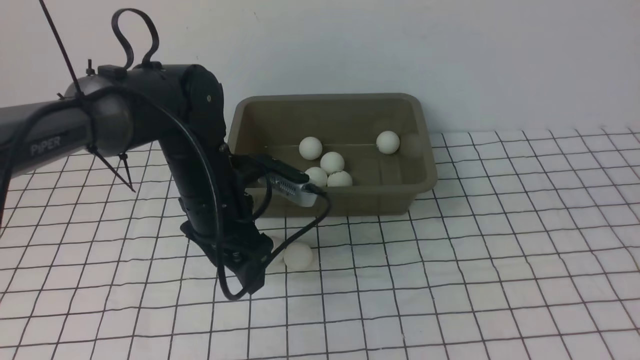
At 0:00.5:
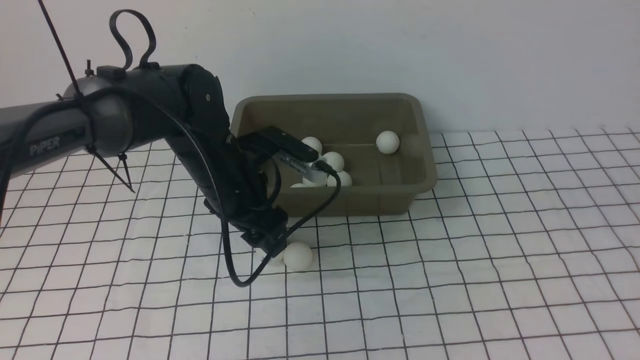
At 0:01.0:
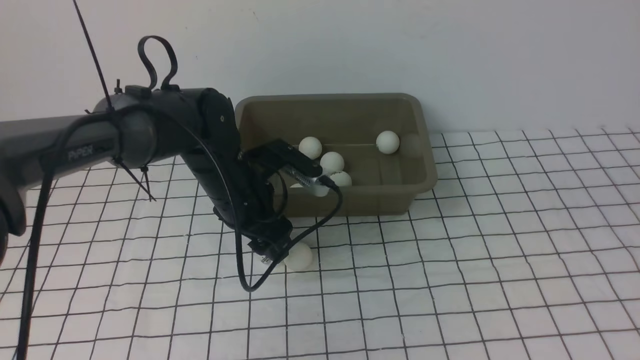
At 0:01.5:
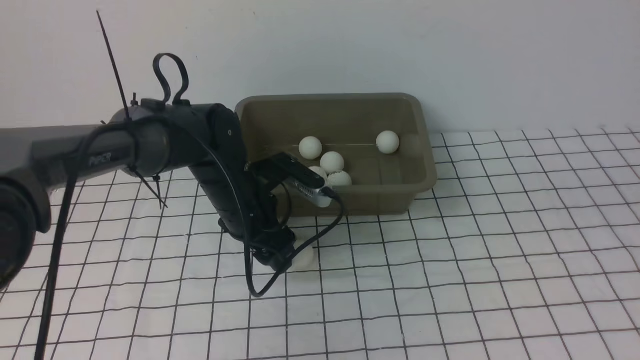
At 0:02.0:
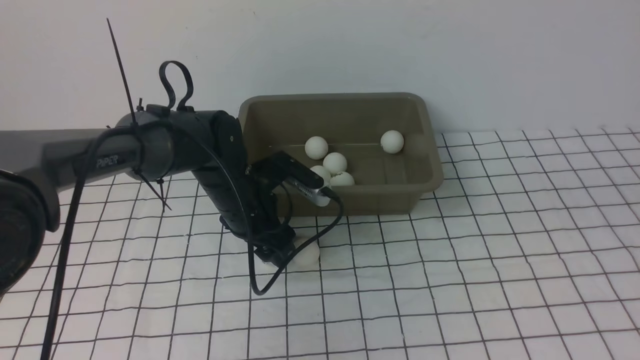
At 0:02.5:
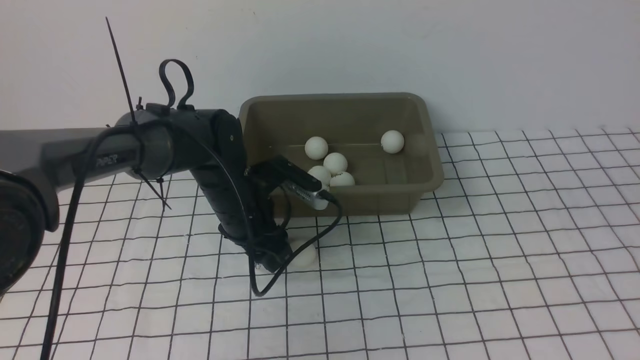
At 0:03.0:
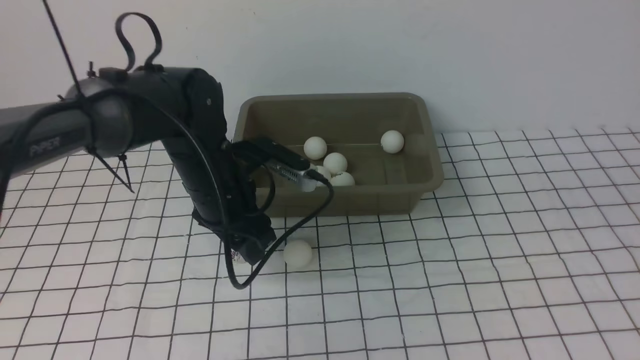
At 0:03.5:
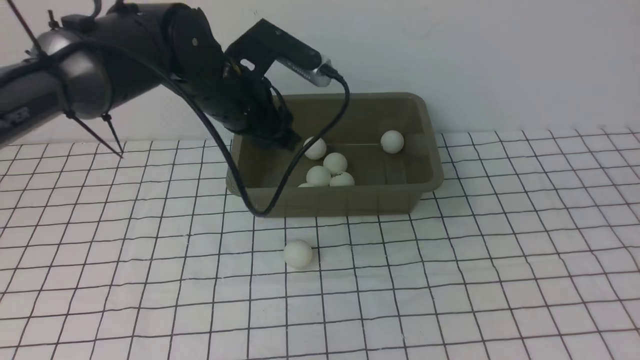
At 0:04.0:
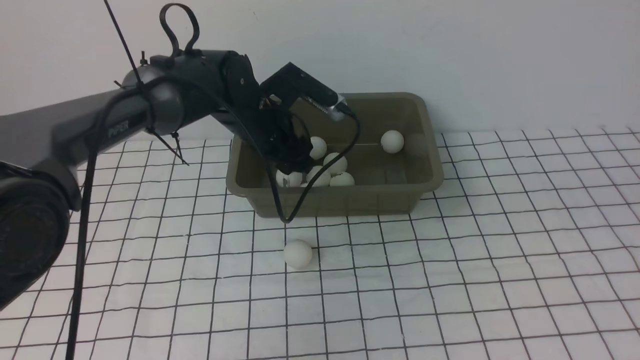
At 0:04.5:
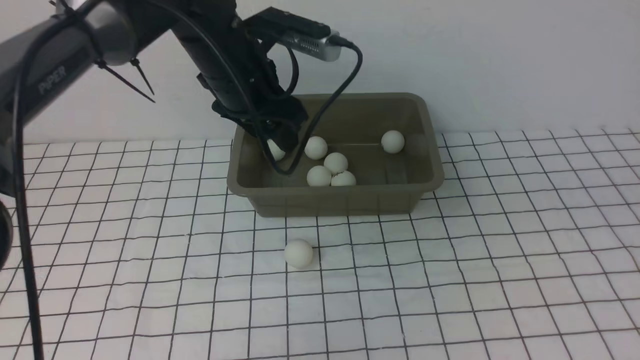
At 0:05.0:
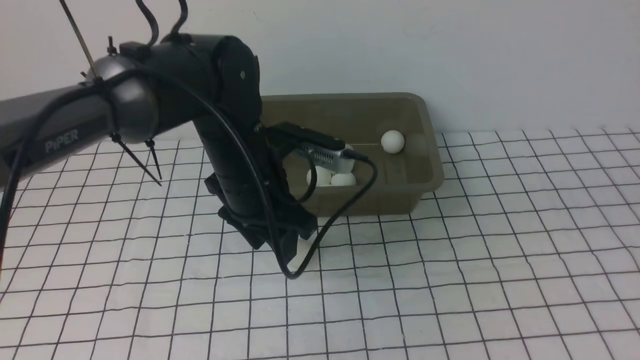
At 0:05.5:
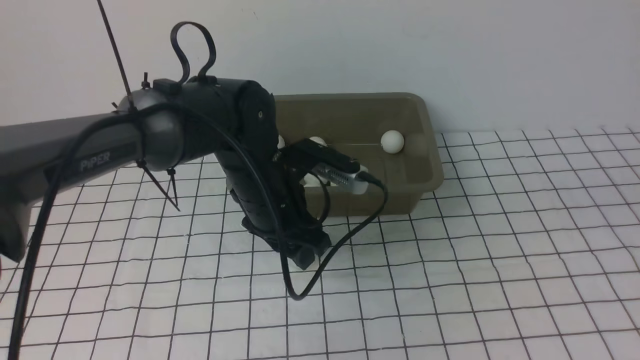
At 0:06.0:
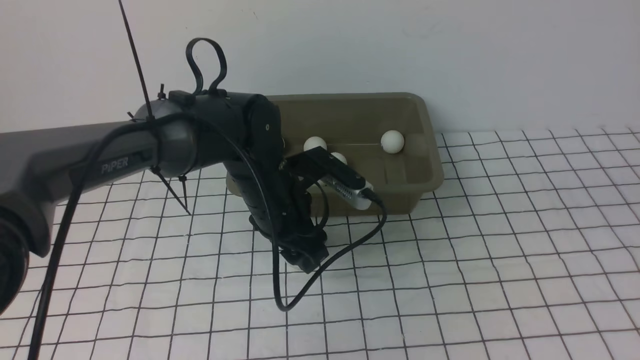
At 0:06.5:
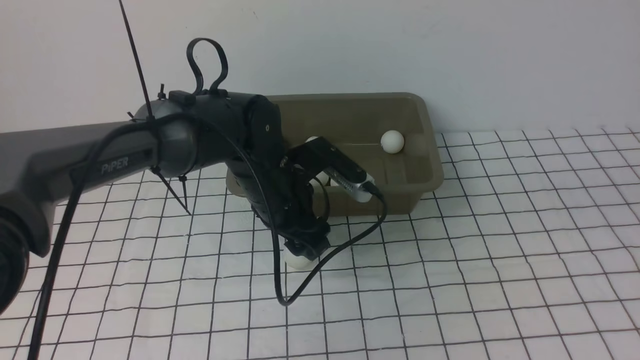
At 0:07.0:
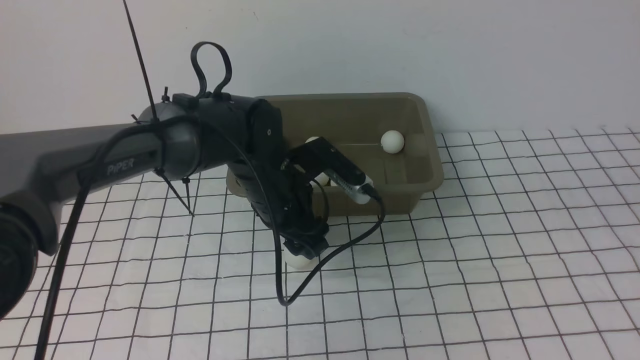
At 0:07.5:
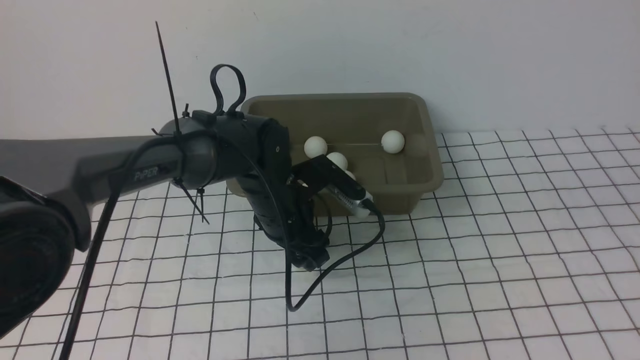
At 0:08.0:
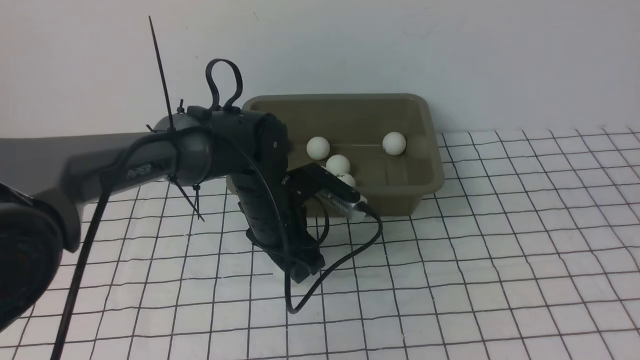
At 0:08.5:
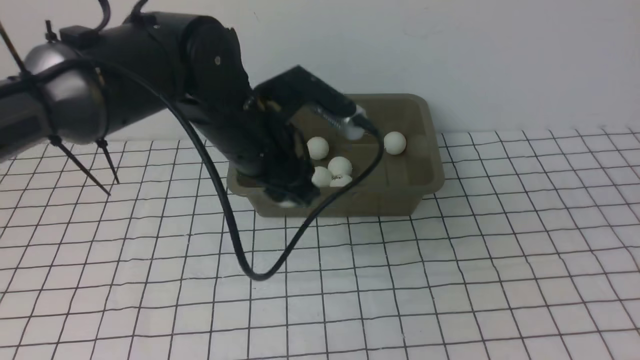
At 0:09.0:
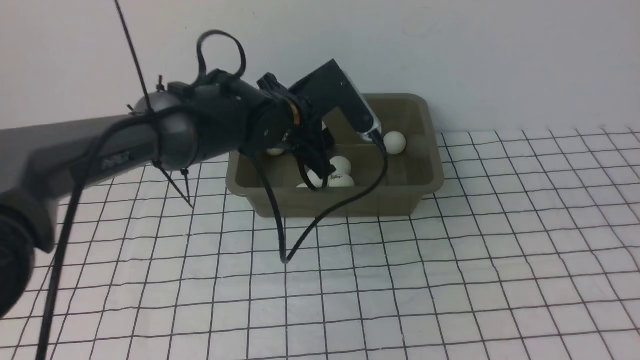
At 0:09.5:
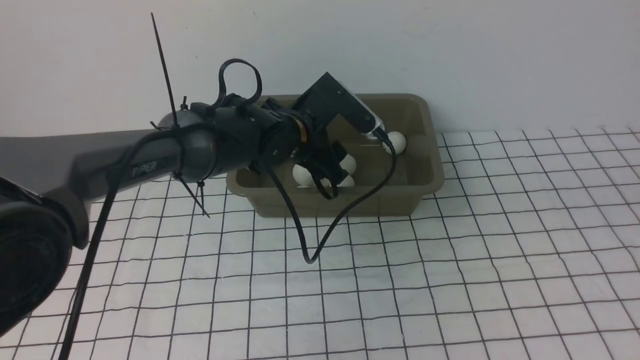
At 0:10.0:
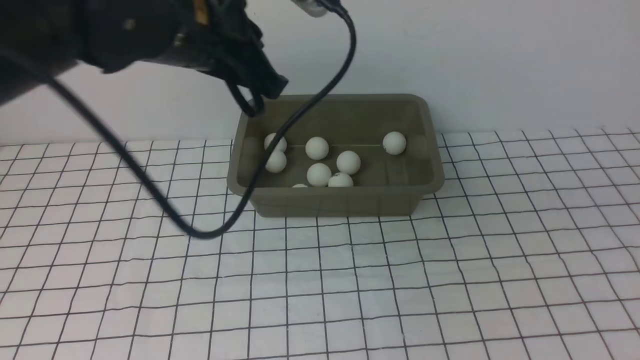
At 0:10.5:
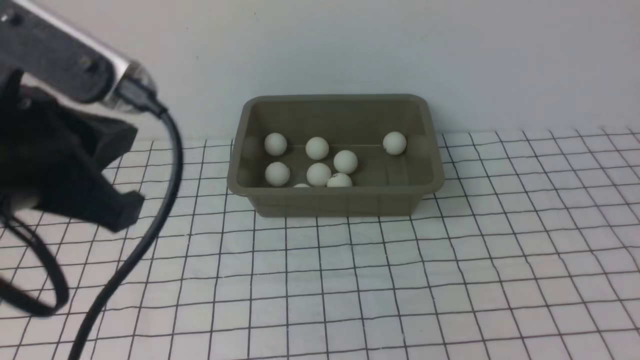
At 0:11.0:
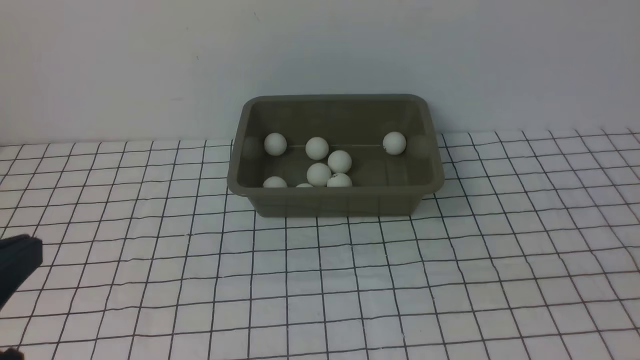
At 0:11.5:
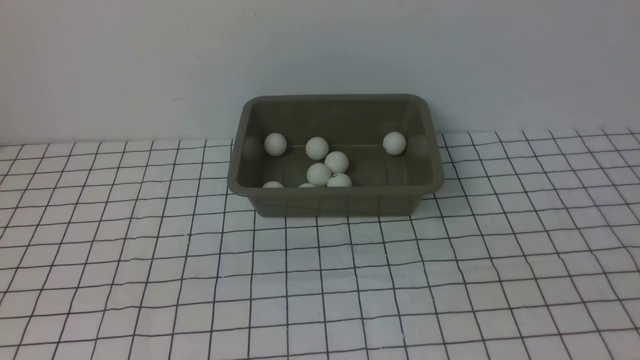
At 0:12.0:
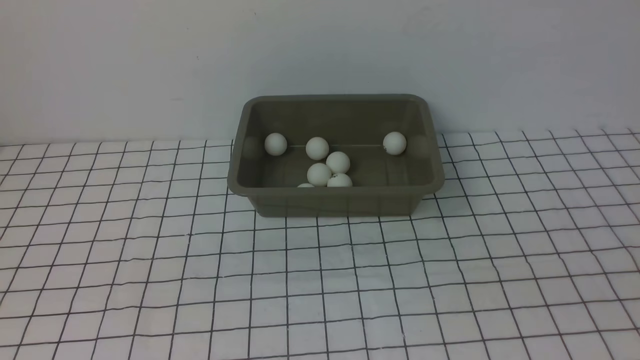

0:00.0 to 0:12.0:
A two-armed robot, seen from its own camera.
Step, 0:00.0 to 0:03.0: use the left arm to clamp the table tennis ball closest to it.
Step, 0:03.5 to 0:04.0: use the left arm to put the table tennis ball into the box.
Step, 0:04.5 to 0:08.0: use the left arm to clamp the table tennis ball closest to it.
Step, 0:08.5 to 0:09.5: use the left arm to put the table tennis ball into the box.
0:00.0 to 0:02.0: The left gripper travels downward by about 5 cm.
0:02.0 to 0:04.0: The left gripper travels upward and forward by roughly 10 cm.
0:04.0 to 0:06.0: The left gripper shifts roughly 10 cm backward.
0:06.0 to 0:08.0: The left gripper heads upward, covering about 10 cm.
0:08.0 to 0:10.0: The left gripper is displaced backward and to the left by about 30 cm, and closes its fingers. The right gripper ends up some 5 cm from where it was.
0:10.0 to 0:12.0: The left gripper moves downward, some 15 cm, while the right gripper goes roughly 5 cm downward.

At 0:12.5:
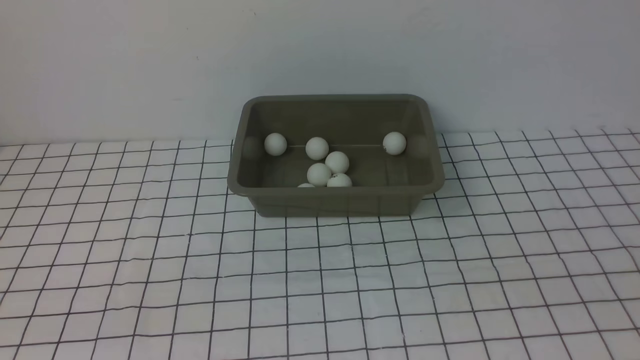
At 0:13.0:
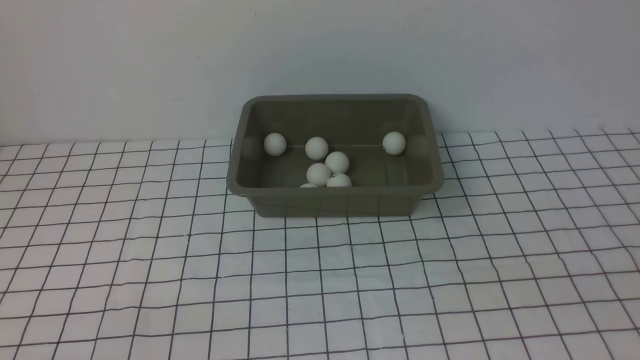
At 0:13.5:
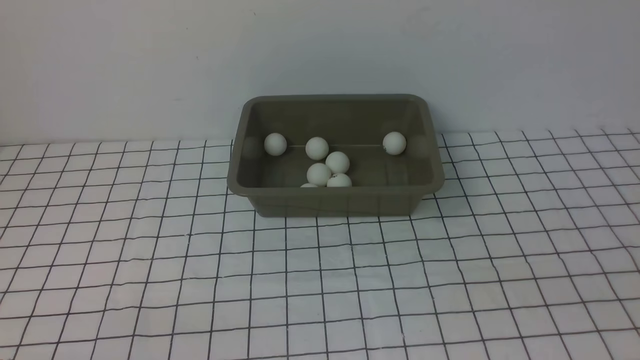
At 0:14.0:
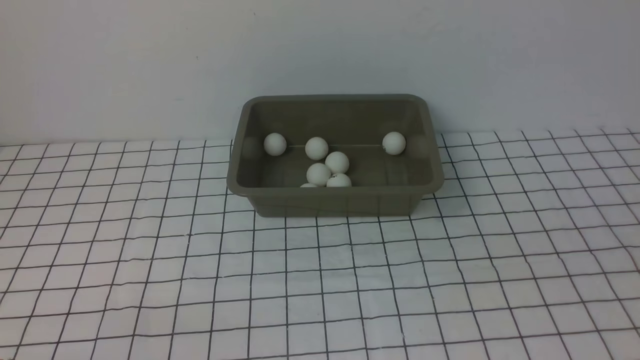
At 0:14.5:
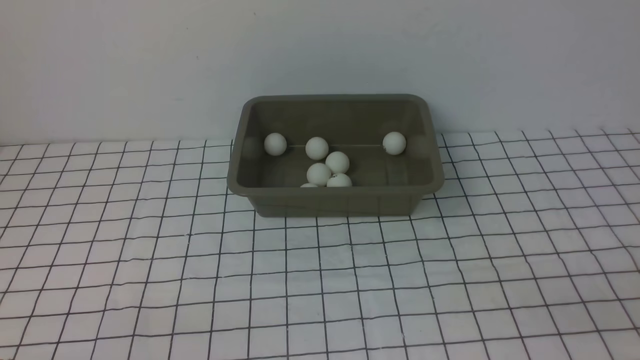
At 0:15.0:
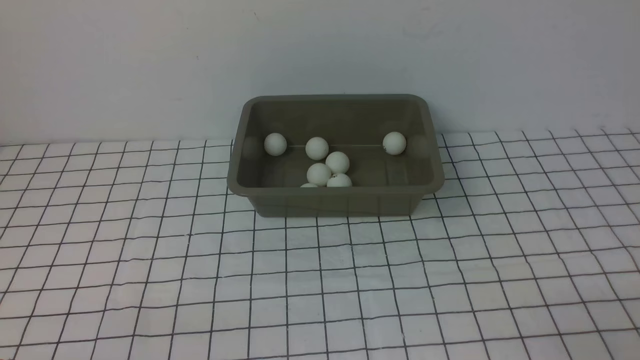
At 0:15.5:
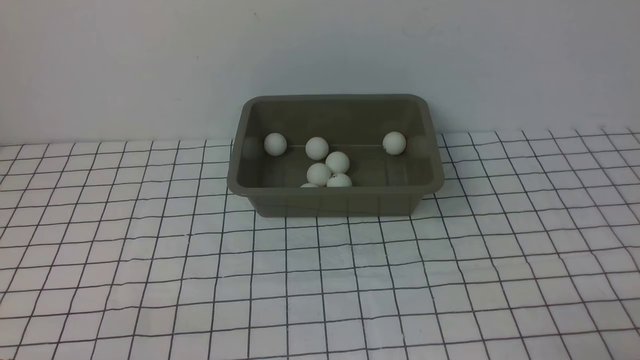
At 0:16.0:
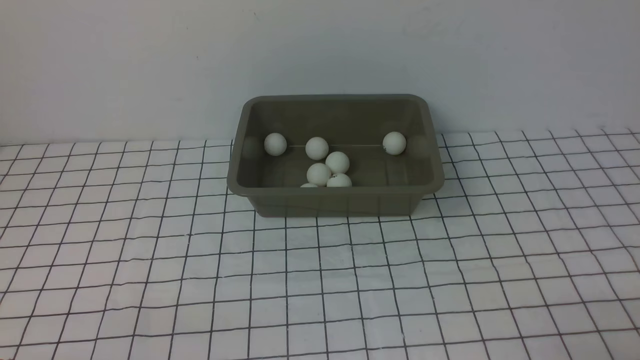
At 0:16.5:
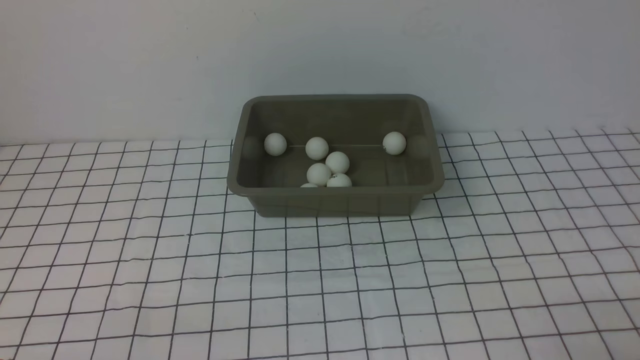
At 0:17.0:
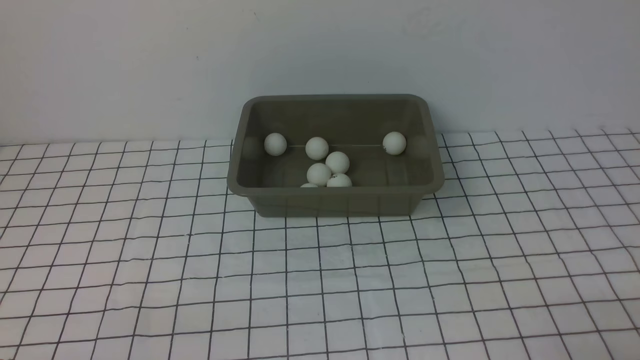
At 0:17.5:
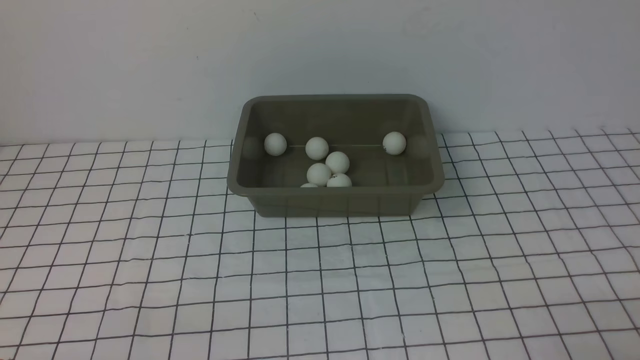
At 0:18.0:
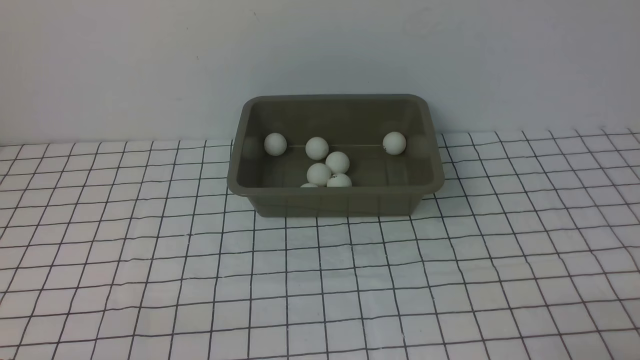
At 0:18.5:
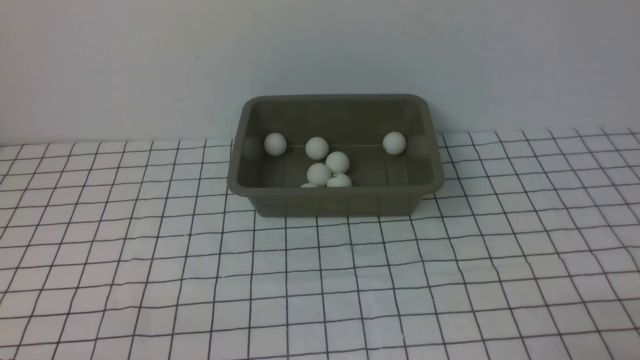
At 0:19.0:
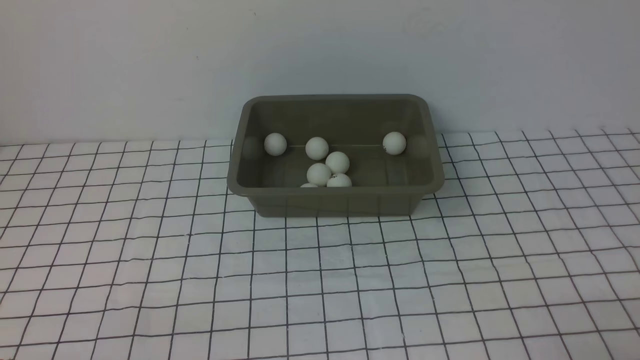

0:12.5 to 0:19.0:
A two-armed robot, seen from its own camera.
0:14.5 to 0:19.0: Neither gripper changes place.
